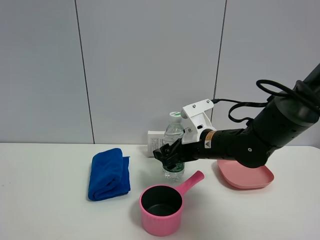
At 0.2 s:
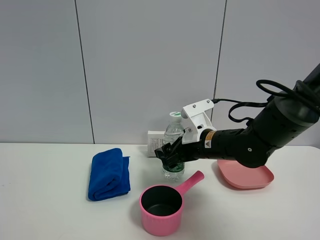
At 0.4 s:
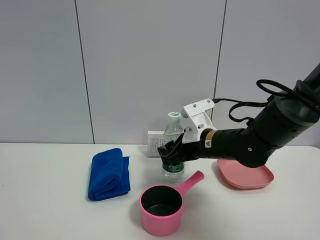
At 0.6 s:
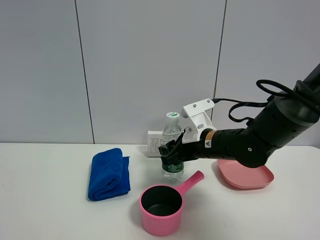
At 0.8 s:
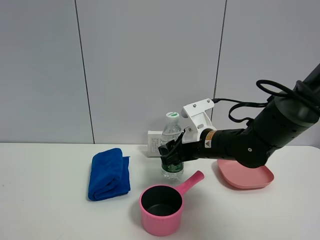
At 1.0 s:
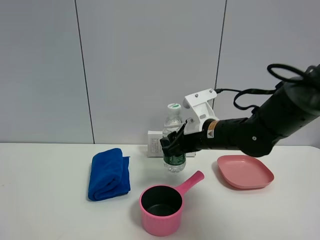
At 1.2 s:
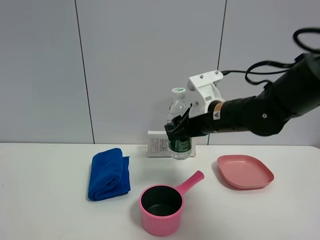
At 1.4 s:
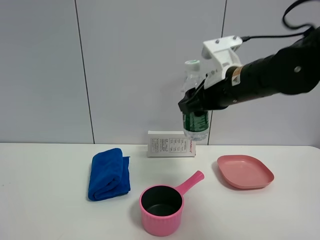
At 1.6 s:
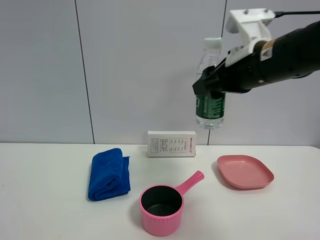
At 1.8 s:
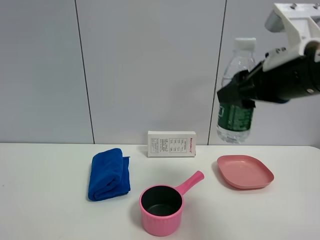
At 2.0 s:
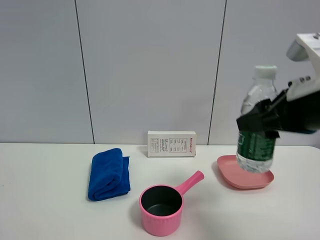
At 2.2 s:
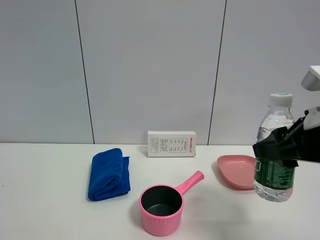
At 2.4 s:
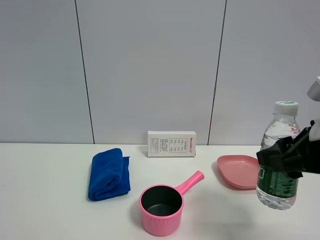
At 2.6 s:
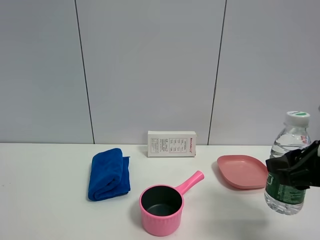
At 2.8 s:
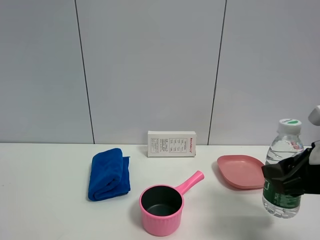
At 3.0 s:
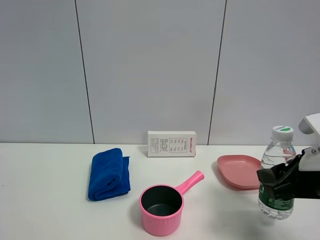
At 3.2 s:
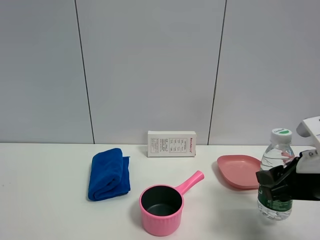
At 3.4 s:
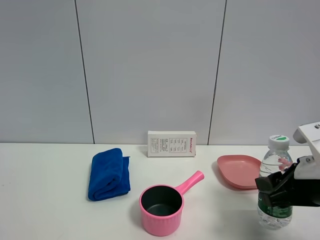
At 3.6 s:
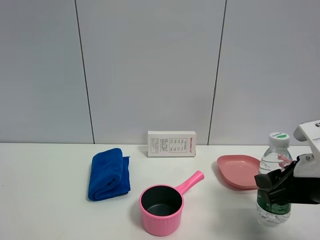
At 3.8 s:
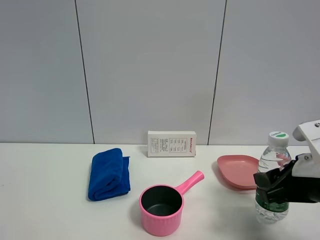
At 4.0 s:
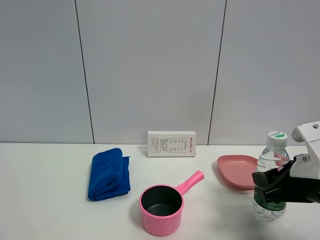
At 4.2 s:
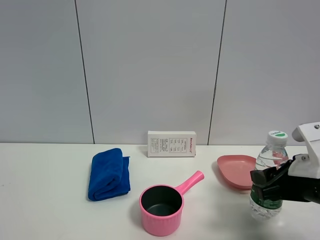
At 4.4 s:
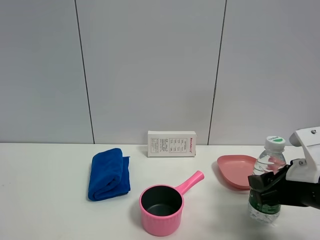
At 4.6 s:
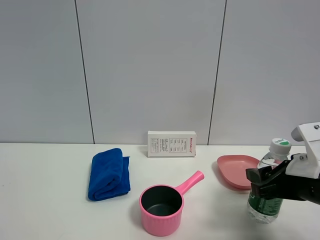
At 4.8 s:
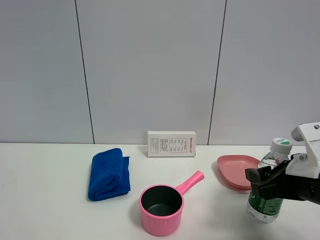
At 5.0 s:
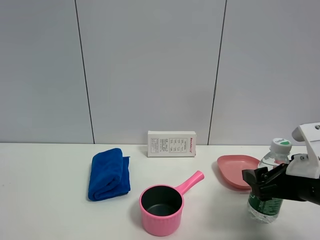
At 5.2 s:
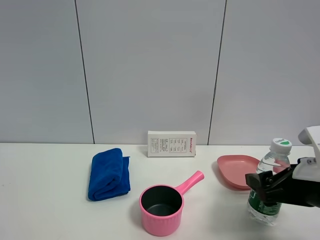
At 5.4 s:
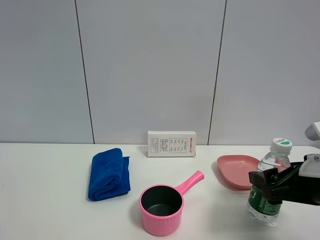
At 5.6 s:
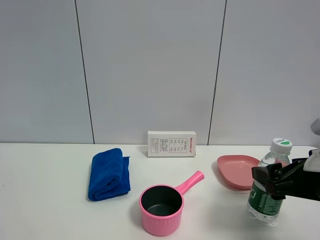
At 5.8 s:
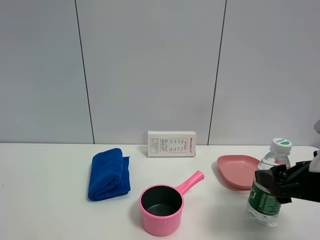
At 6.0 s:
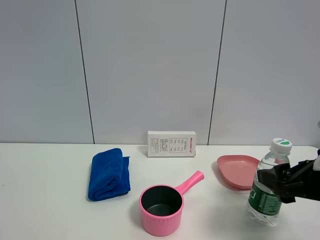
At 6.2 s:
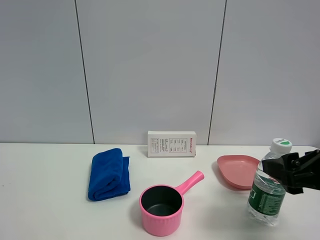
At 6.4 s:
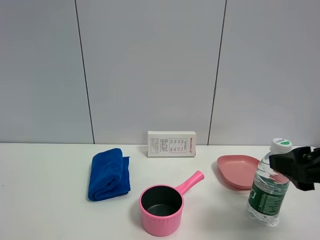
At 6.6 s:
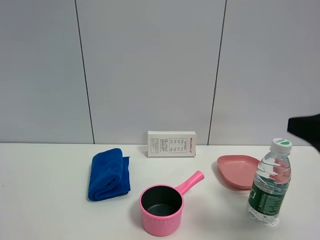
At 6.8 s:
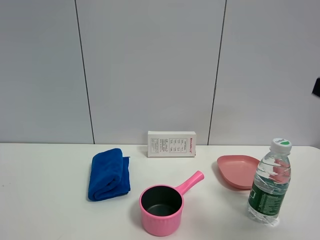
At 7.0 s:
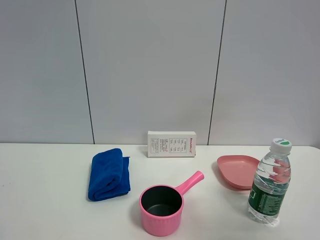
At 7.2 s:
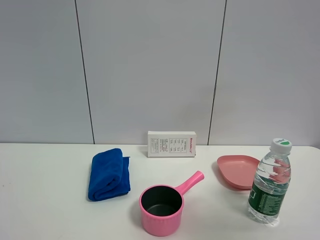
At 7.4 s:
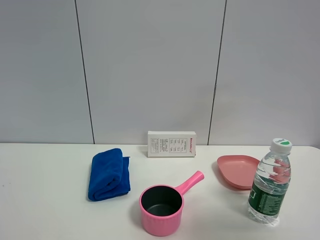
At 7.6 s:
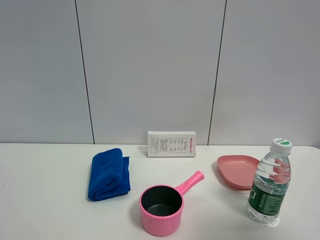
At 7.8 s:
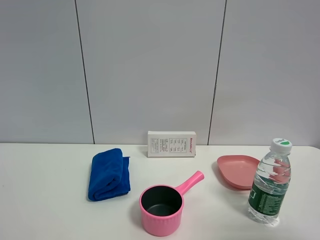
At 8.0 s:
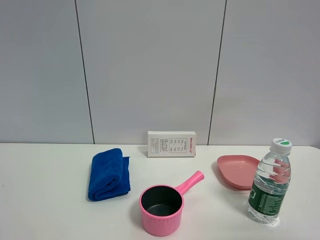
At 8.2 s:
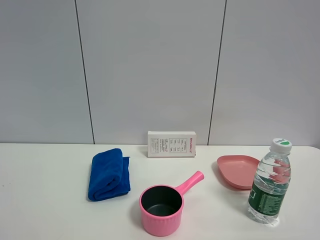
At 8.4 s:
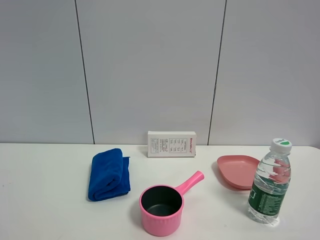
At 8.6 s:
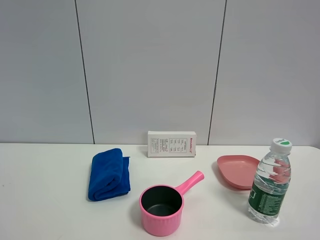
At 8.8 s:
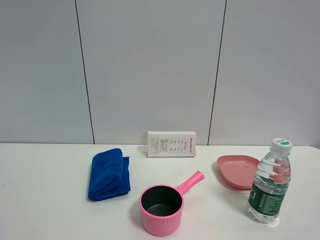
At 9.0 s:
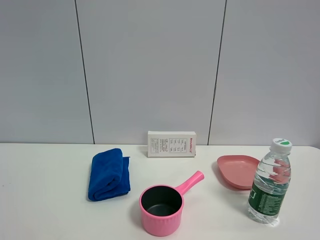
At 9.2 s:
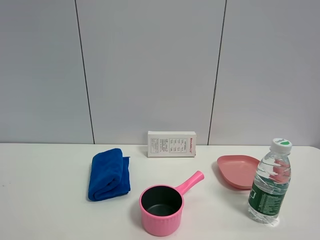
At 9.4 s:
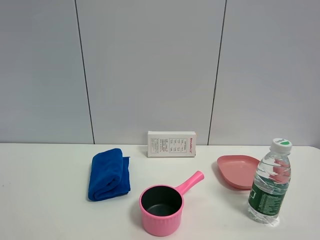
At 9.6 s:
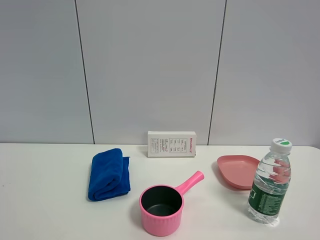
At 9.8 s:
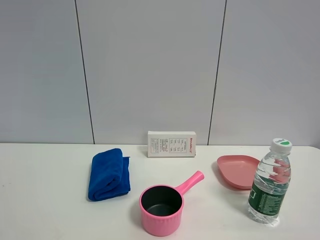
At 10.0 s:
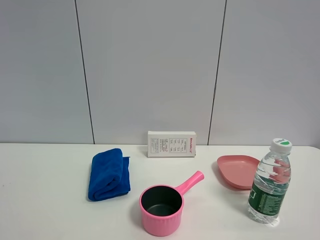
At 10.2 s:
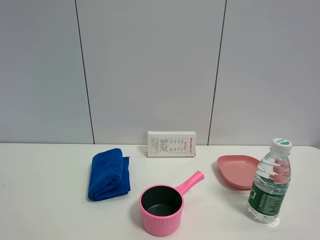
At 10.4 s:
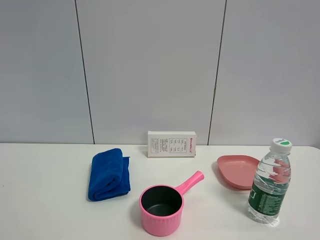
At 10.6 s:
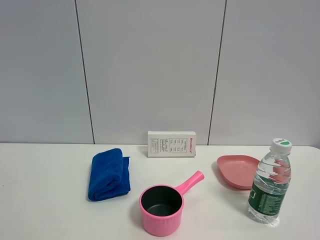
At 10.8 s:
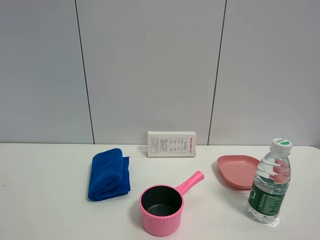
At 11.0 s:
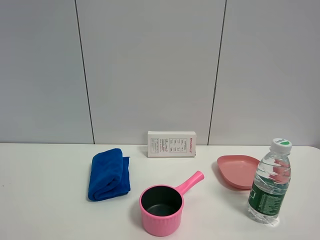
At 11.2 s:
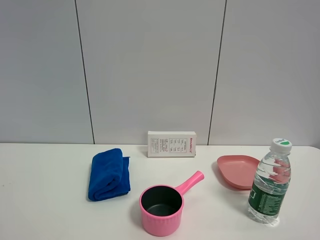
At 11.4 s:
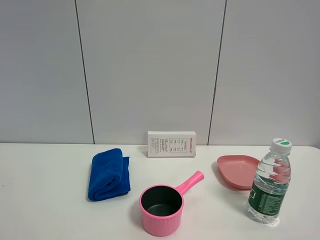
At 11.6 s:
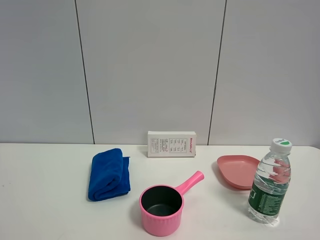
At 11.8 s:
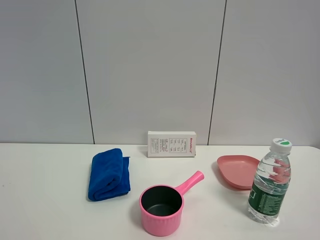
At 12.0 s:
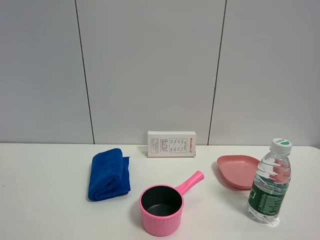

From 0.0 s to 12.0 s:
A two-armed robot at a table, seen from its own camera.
Task of the whole recording: the gripper move the object.
Step, from 0.6 s to 6.0 s: Place the YiBao mineral water on the table with the right gripper.
From 0.0 s to 1.6 s: The right gripper moves upward and backward, about 20 cm, and closes its fingers.
From 1.6 s to 3.0 s: The right gripper heads downward, to the right and backward, covering roughly 20 cm.
From 3.0 s to 4.4 s: There are only small adjustments of the grippers.
From 4.4 s to 6.0 s: The right gripper ends up roughly 5 cm from where it was, and opens its fingers.
From 6.0 s to 7.6 s: The right gripper travels upward and backward by some 20 cm.
From 7.6 s to 9.0 s: The right gripper shifts about 10 cm backward and downward.
From 9.0 s to 12.0 s: Both grippers stay about where they are.

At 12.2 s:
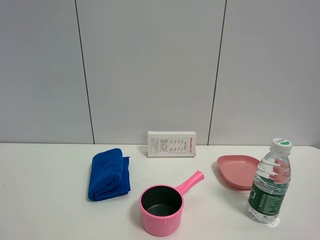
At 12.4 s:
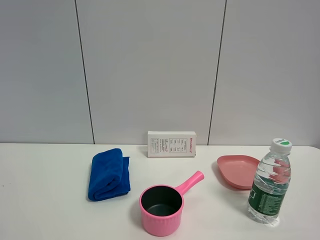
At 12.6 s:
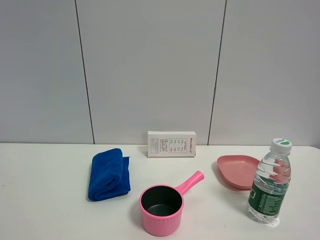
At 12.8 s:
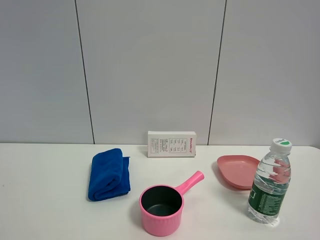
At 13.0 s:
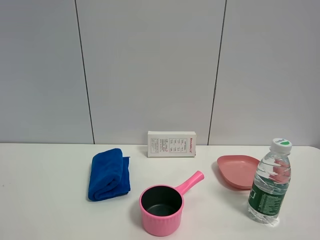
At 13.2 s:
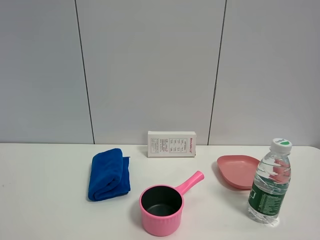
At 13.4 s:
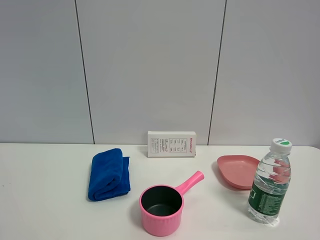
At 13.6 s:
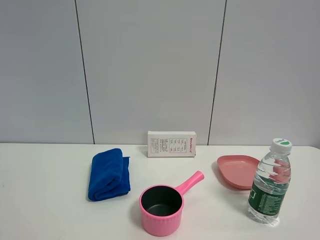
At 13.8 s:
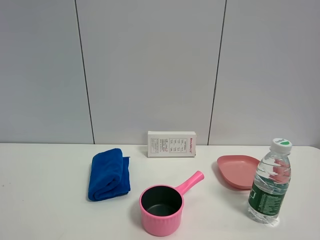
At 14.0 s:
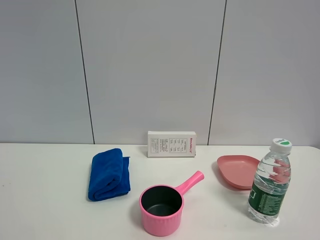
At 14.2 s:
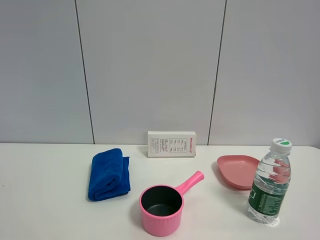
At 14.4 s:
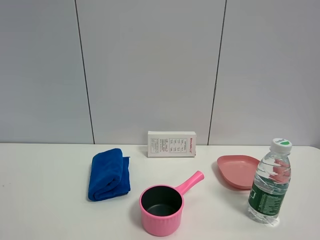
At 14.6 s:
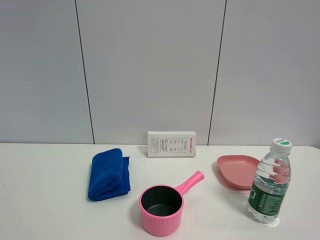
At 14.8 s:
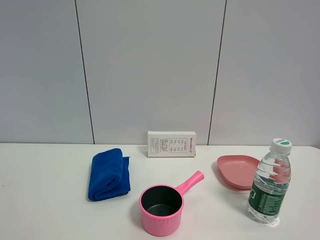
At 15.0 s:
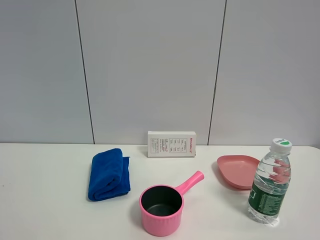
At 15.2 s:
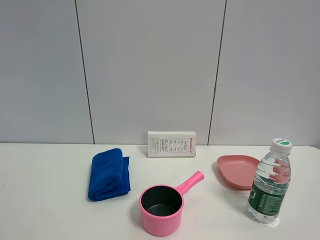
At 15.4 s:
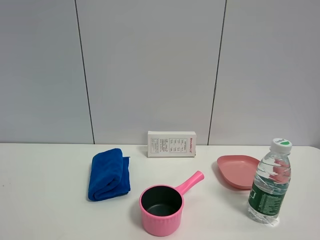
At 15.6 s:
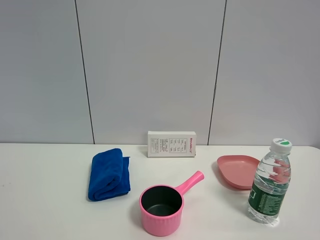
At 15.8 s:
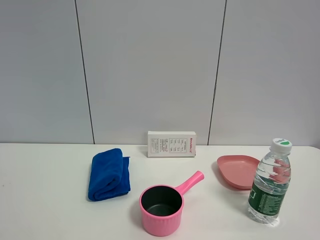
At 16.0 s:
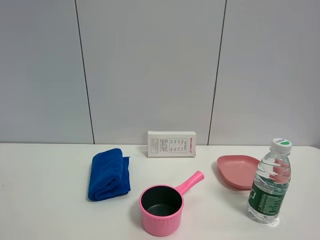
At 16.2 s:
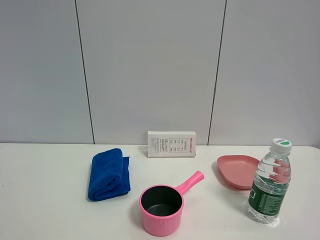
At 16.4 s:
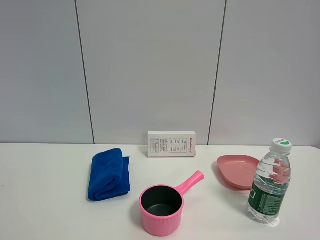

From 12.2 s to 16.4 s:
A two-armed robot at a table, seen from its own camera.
Task of the whole recording: the gripper move the object.
From 12.2 s to 16.4 s: Both grippers stay put.
